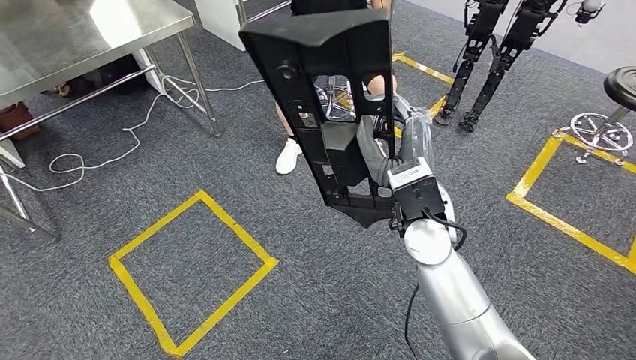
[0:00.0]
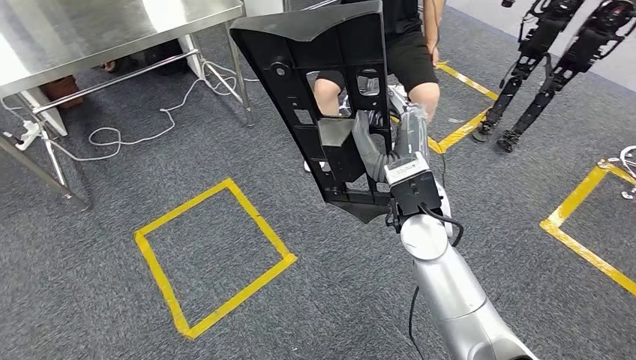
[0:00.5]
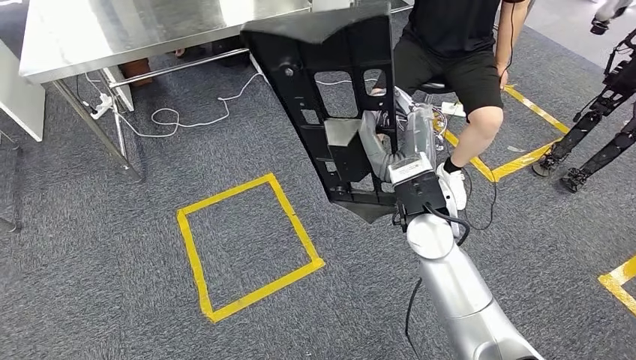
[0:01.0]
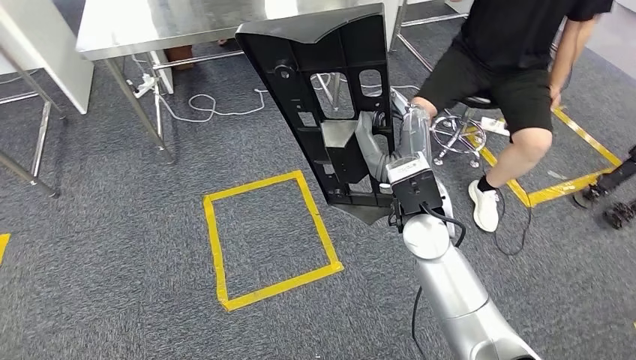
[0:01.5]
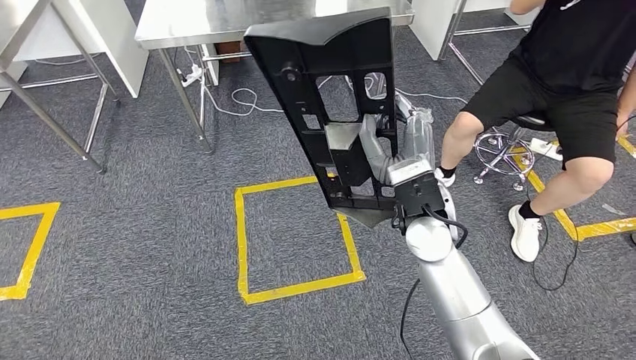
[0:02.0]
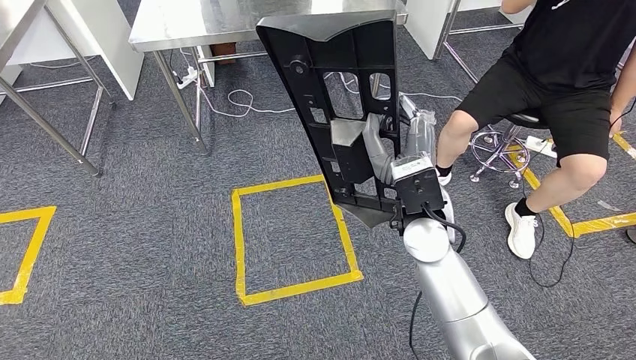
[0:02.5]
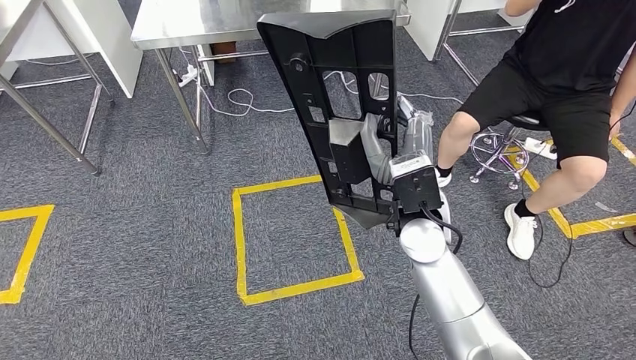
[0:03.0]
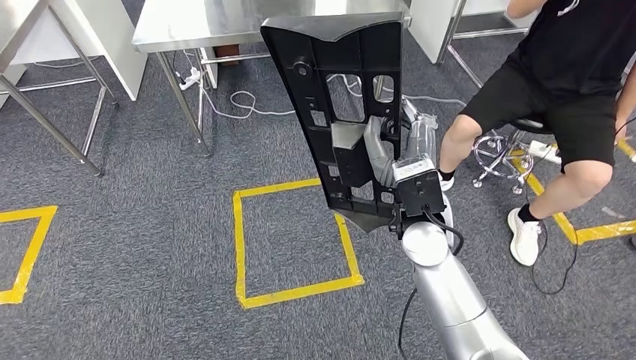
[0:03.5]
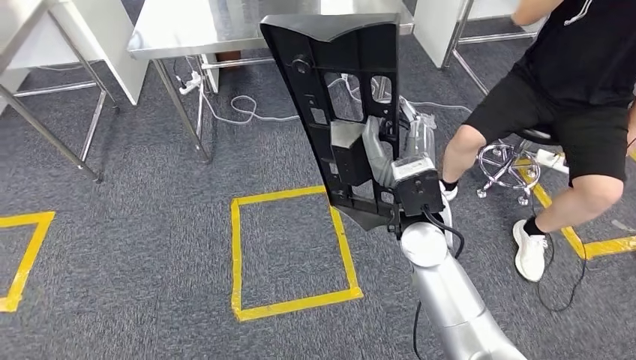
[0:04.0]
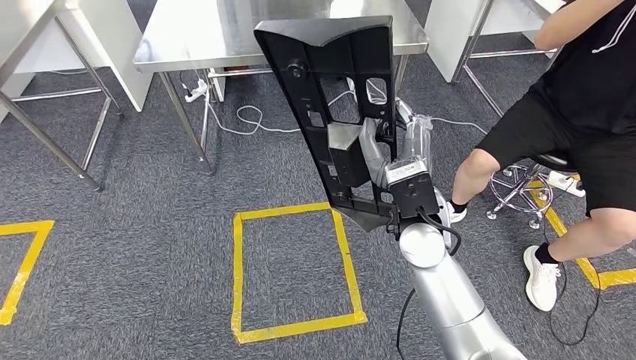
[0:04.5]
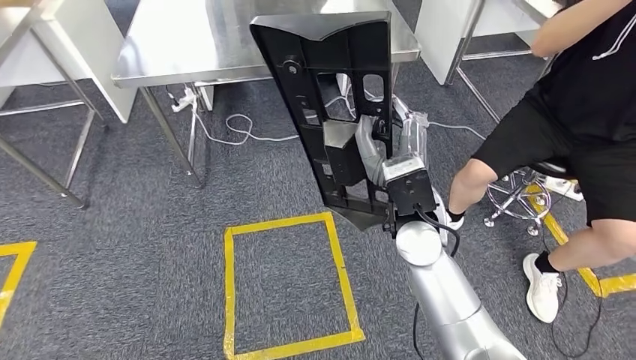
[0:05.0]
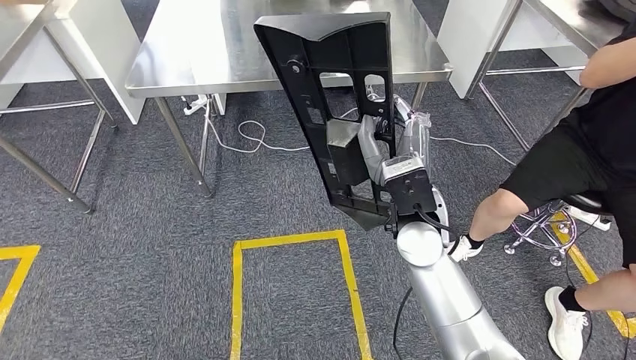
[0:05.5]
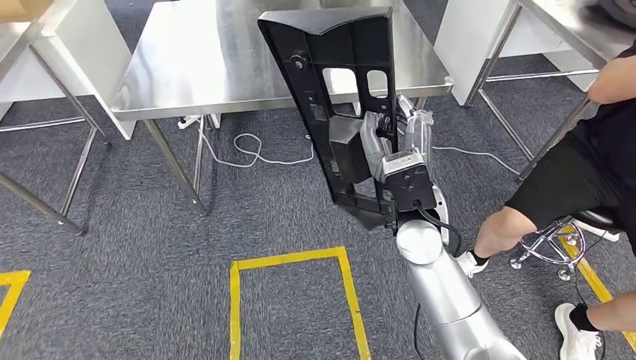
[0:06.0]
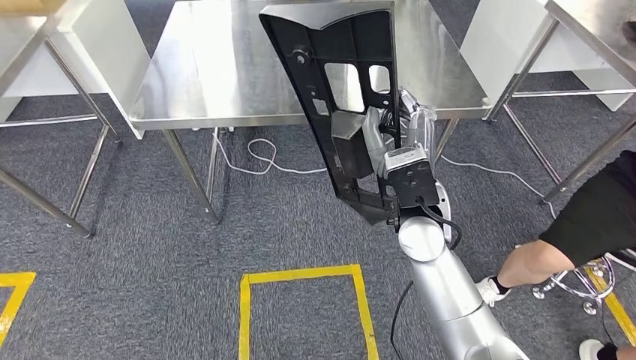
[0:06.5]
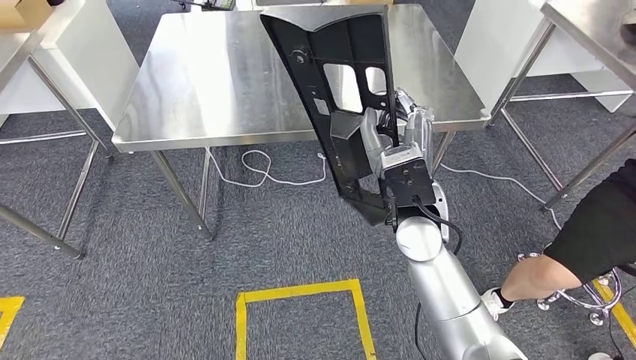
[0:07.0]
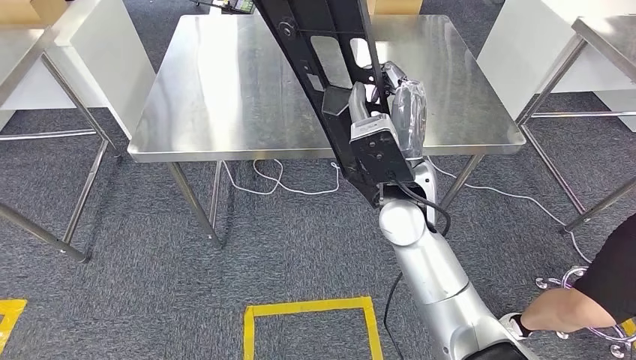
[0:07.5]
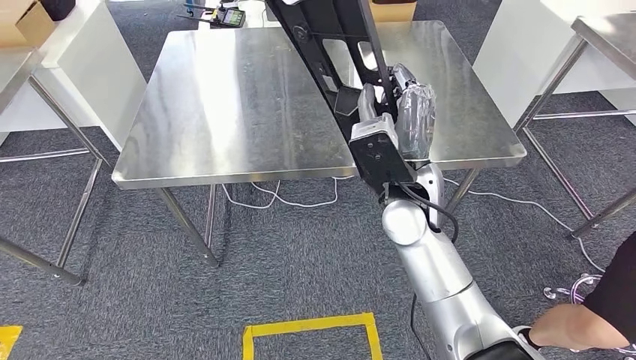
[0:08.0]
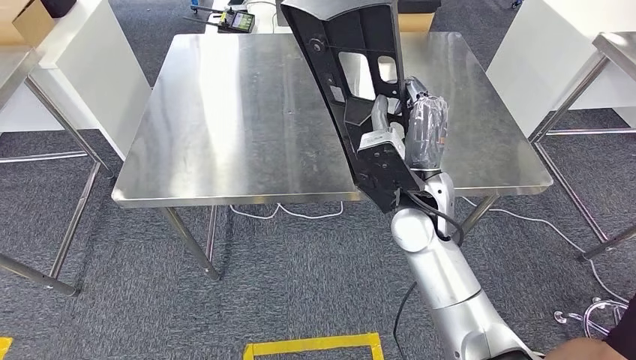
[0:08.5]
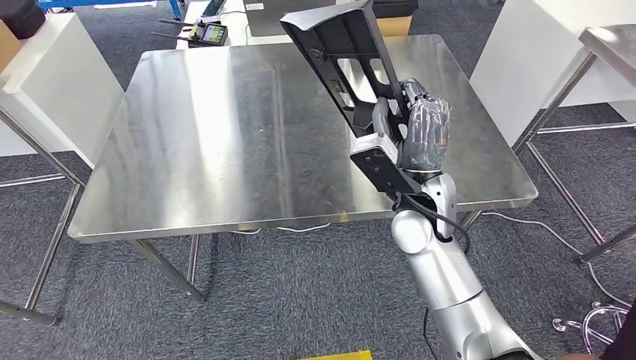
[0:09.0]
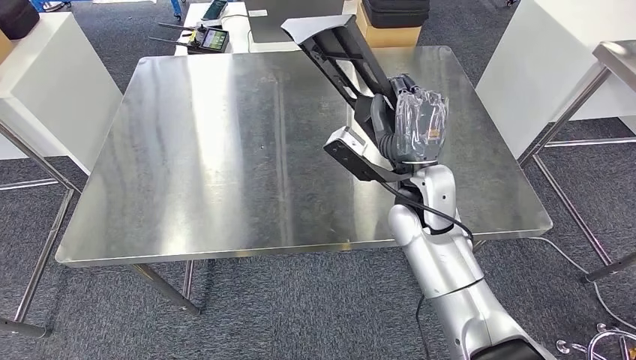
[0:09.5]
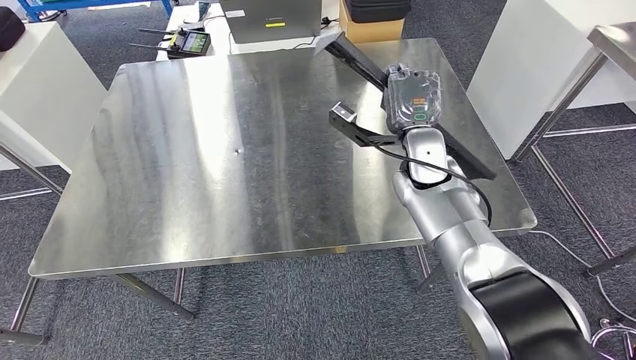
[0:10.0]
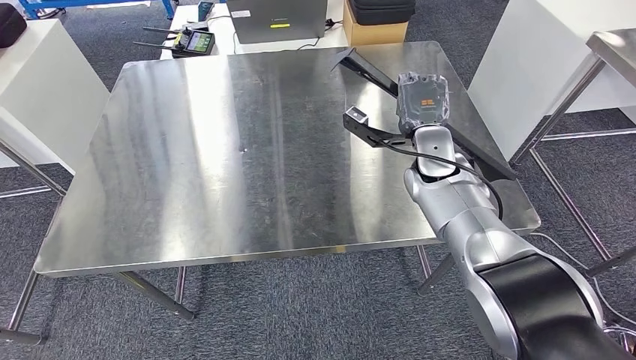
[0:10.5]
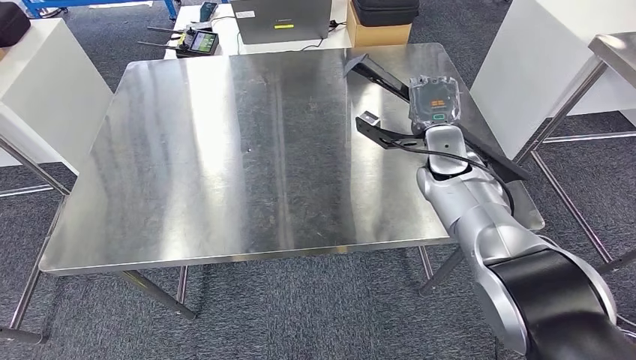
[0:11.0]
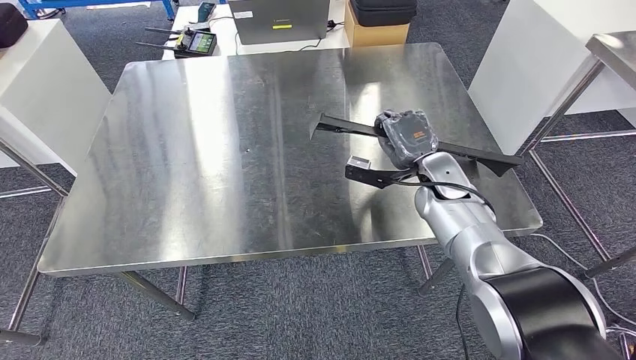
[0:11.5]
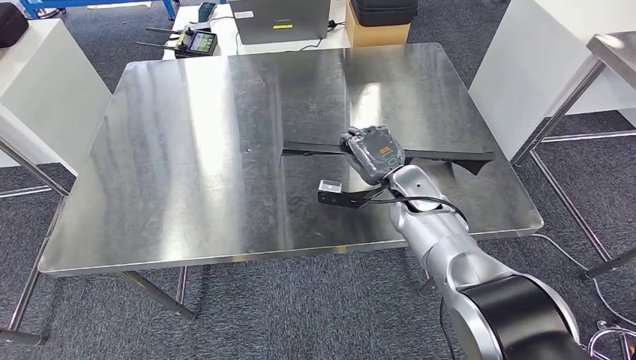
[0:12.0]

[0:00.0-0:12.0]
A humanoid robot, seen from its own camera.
Step, 0:00.0 to 0:07.5: Move the large material to the workbench.

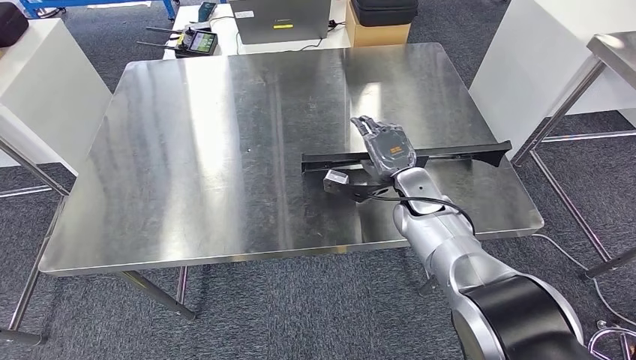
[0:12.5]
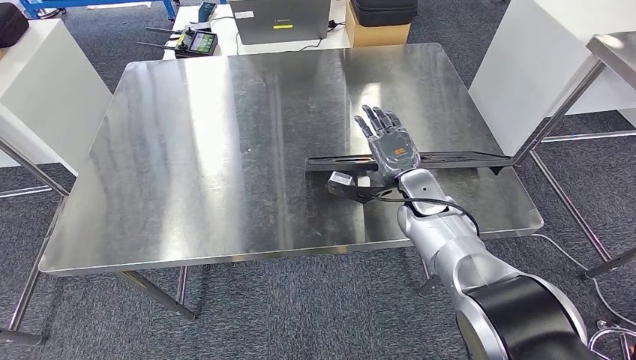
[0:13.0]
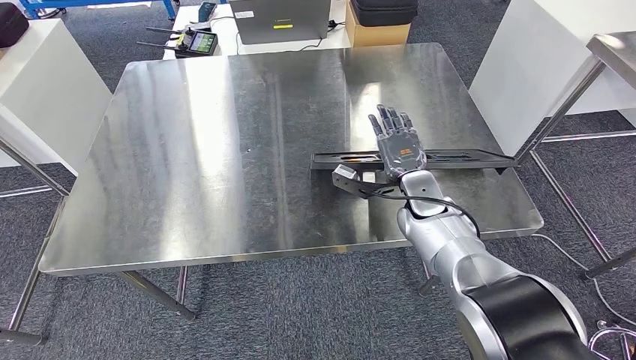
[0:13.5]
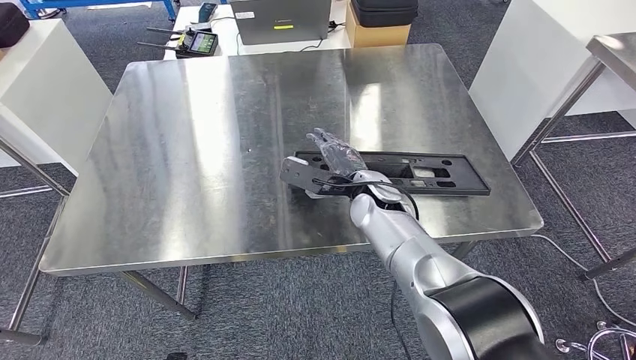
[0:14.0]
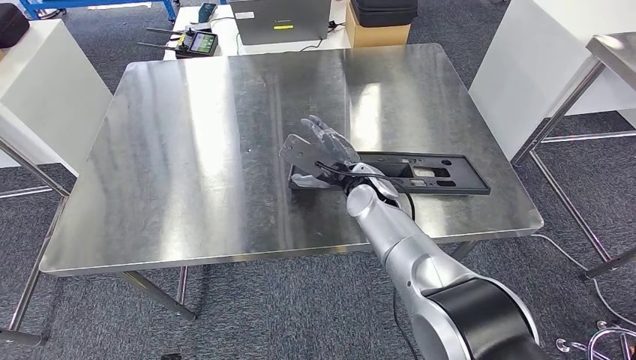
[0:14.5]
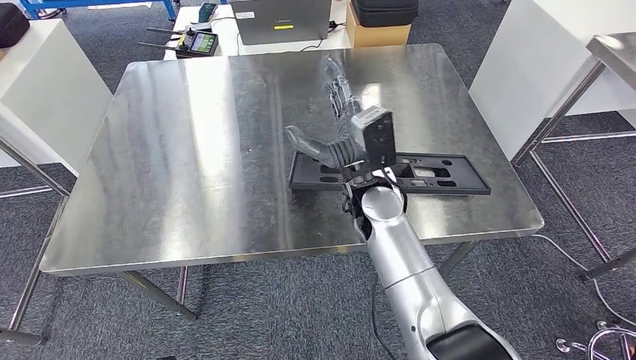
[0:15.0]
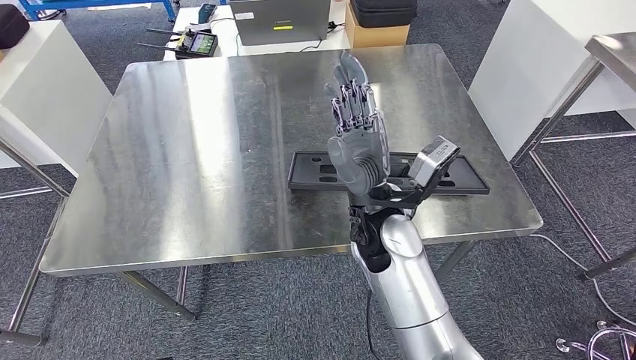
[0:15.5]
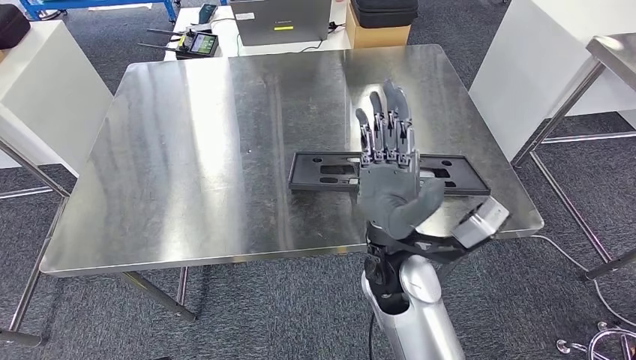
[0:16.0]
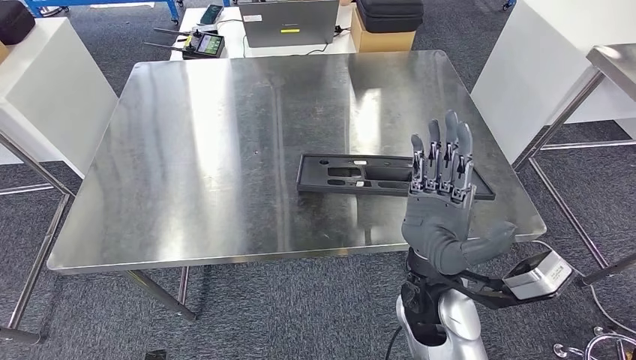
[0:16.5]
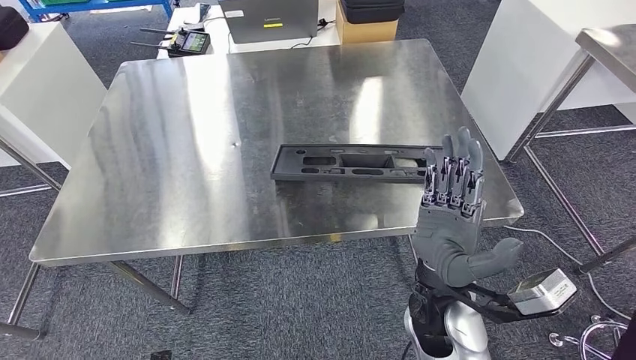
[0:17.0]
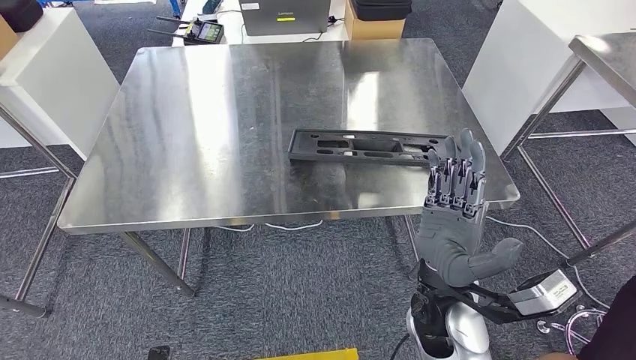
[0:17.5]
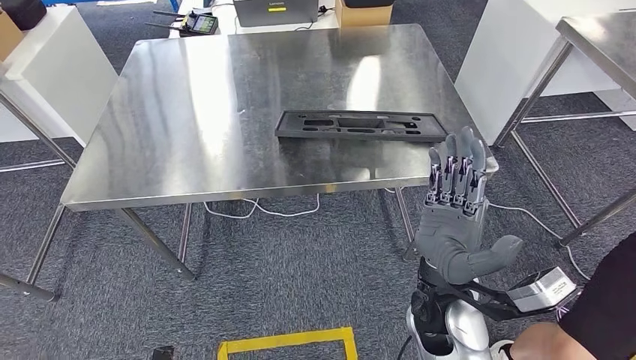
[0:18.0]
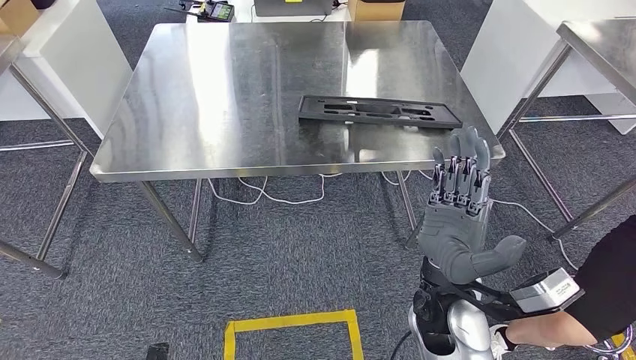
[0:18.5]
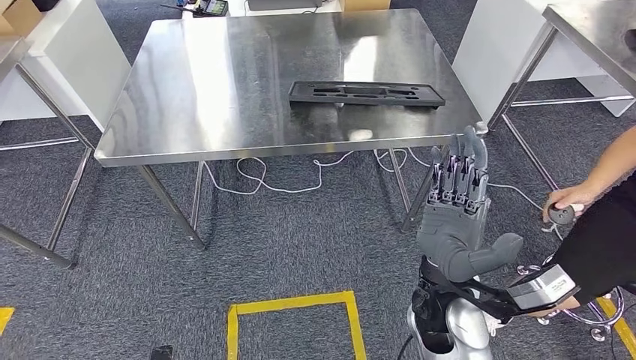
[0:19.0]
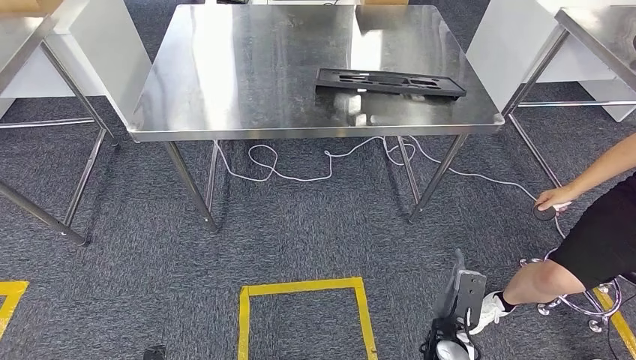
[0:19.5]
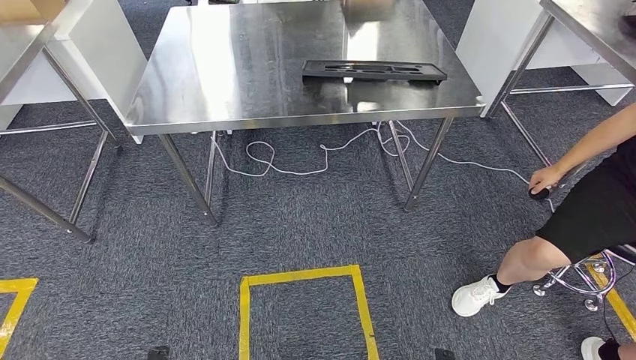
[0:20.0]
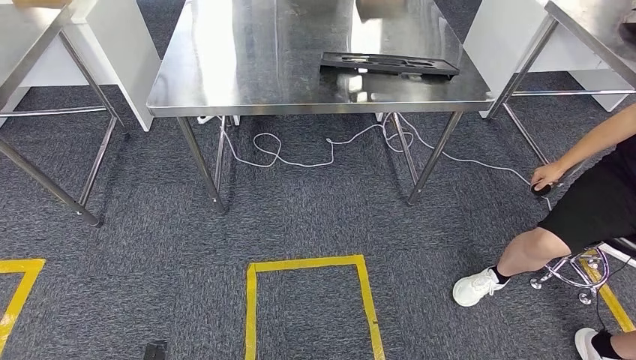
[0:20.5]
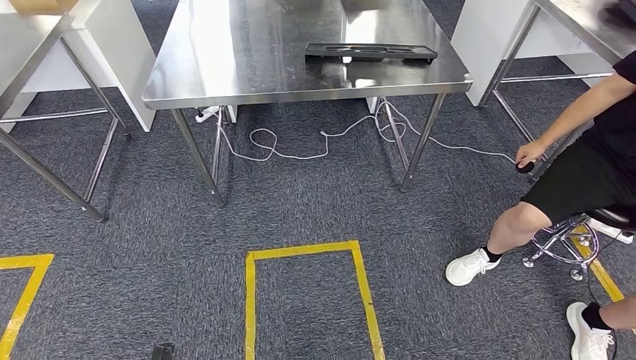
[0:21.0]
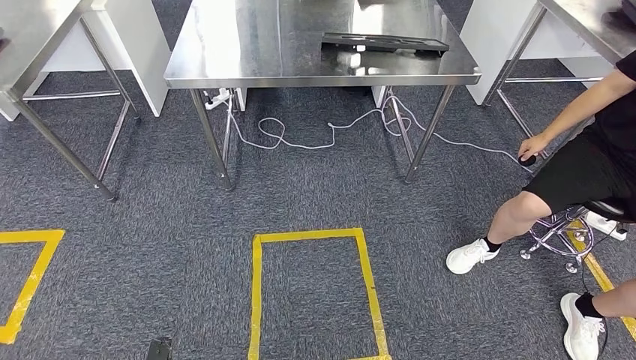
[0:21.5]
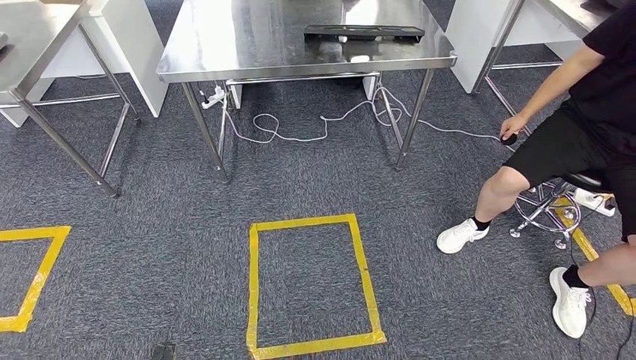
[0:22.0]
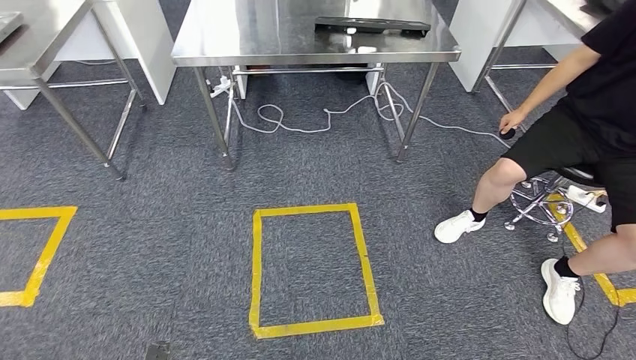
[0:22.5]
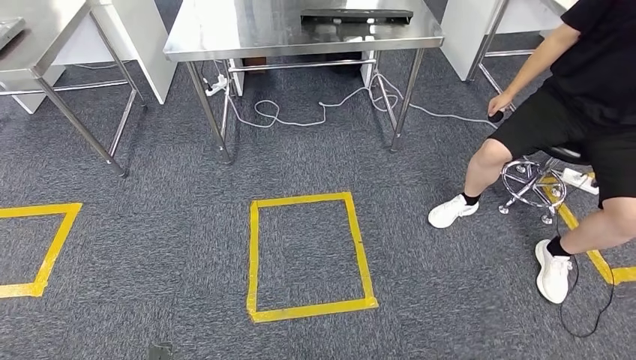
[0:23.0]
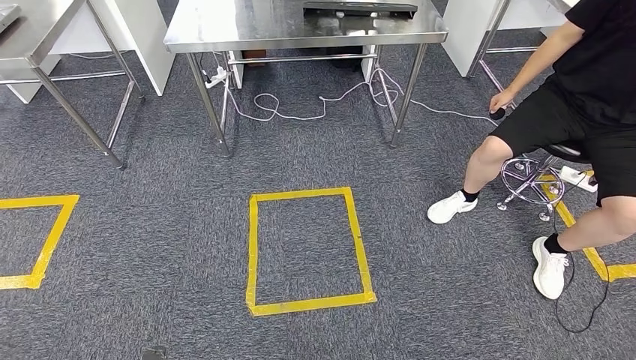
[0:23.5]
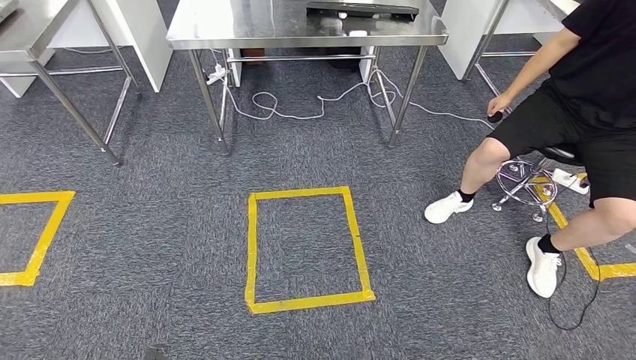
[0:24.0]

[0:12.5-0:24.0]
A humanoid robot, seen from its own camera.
Step, 0:12.5 to 0:19.5: Insert the large material into the corresponding slot on the workbench.
0:12.5 to 0:14.5: The right hand heads to the left, covering roughly 10 cm.
